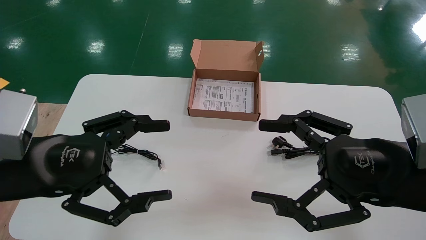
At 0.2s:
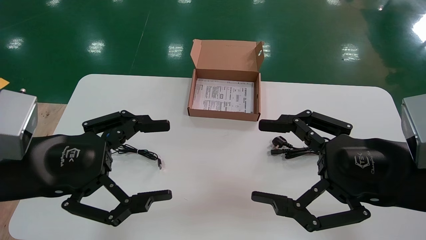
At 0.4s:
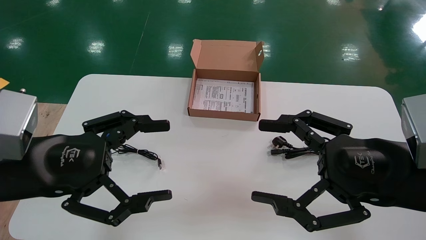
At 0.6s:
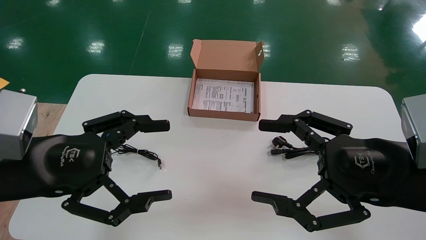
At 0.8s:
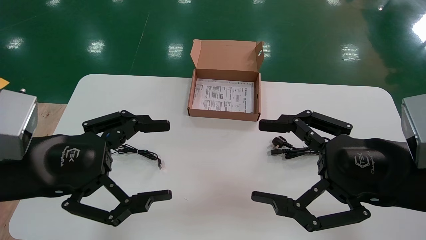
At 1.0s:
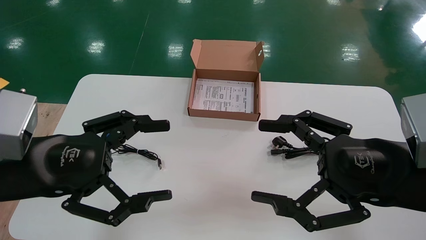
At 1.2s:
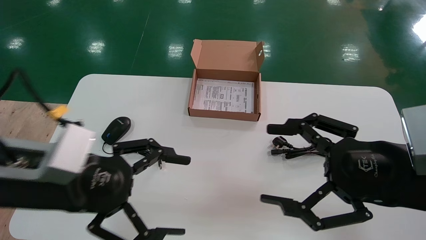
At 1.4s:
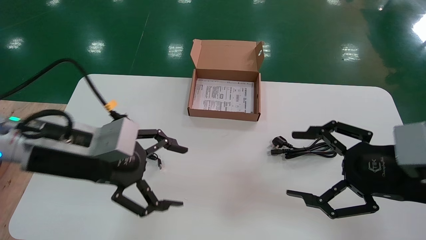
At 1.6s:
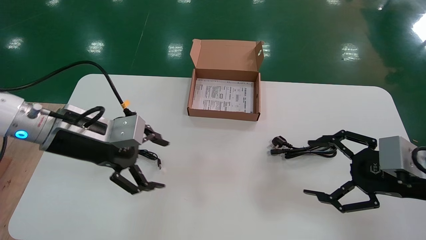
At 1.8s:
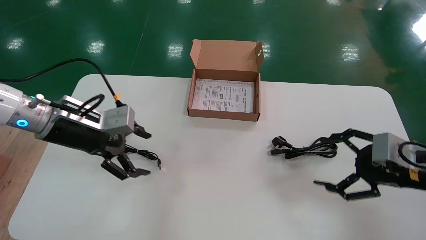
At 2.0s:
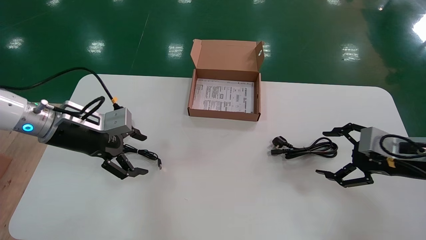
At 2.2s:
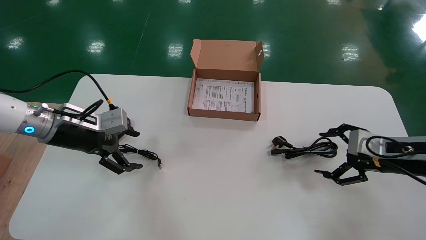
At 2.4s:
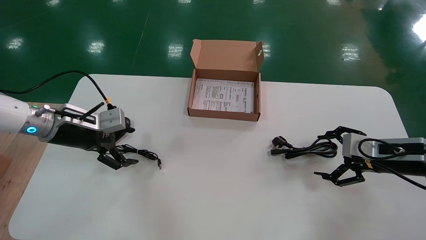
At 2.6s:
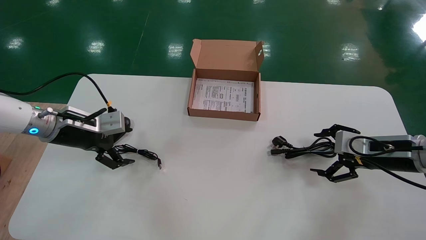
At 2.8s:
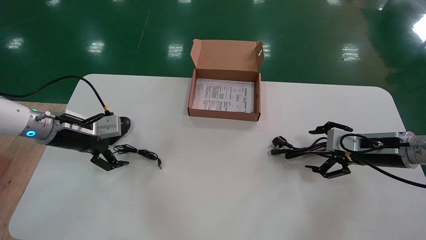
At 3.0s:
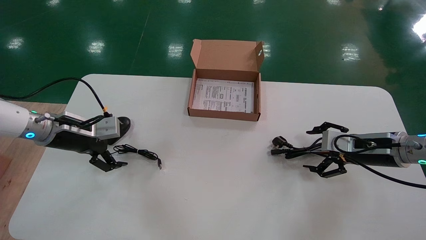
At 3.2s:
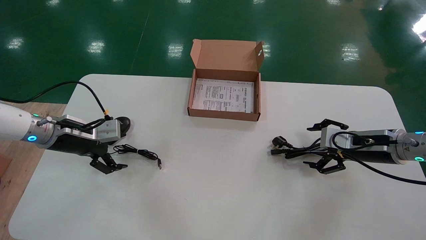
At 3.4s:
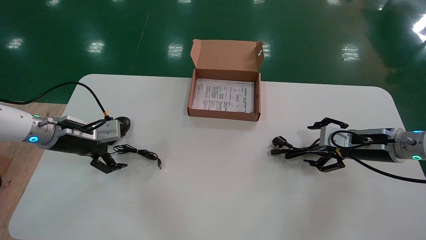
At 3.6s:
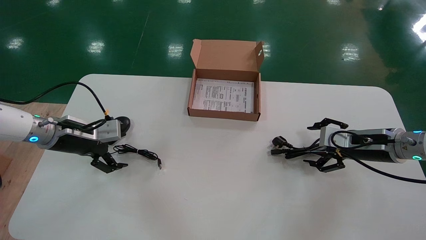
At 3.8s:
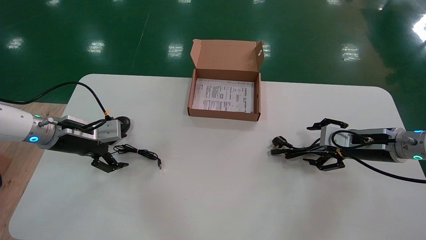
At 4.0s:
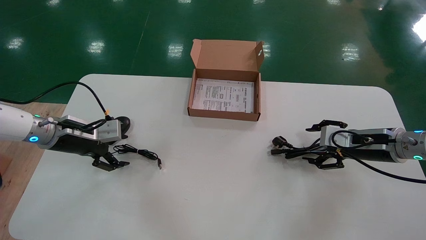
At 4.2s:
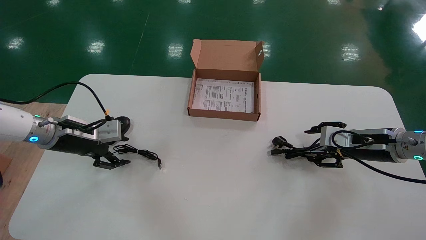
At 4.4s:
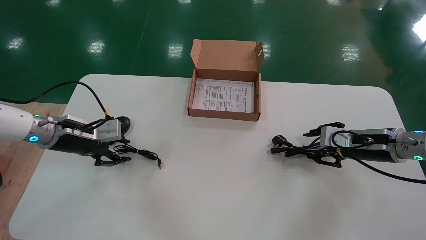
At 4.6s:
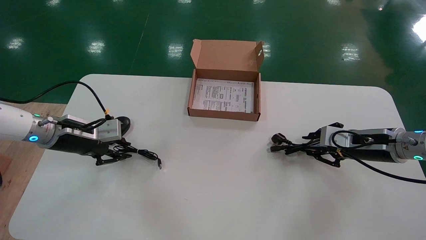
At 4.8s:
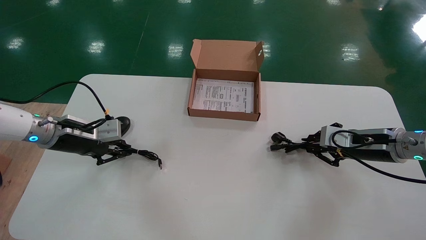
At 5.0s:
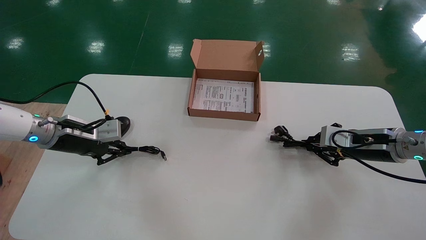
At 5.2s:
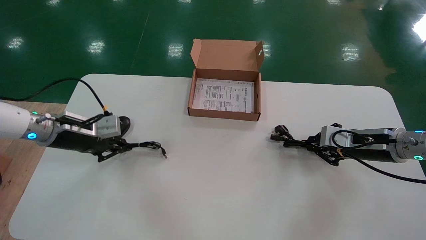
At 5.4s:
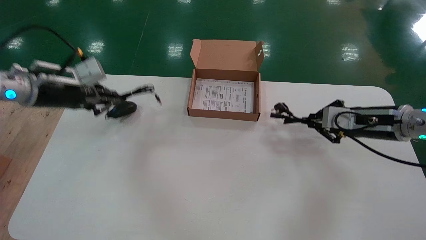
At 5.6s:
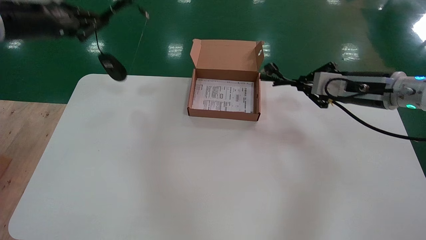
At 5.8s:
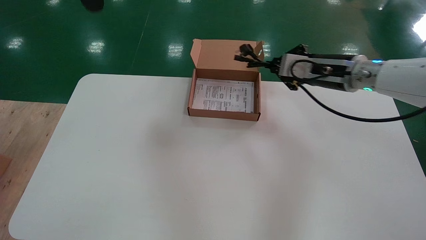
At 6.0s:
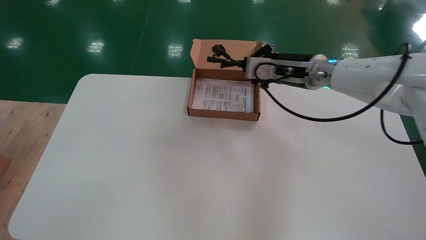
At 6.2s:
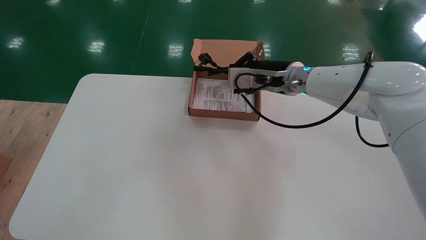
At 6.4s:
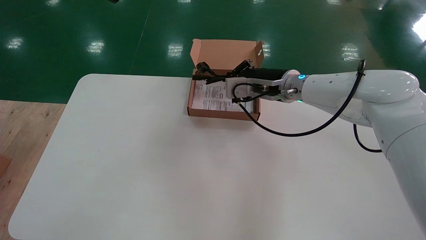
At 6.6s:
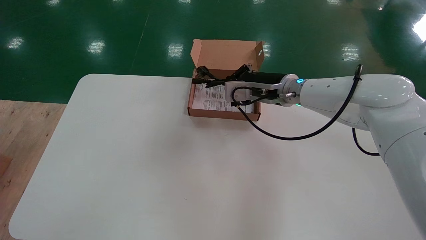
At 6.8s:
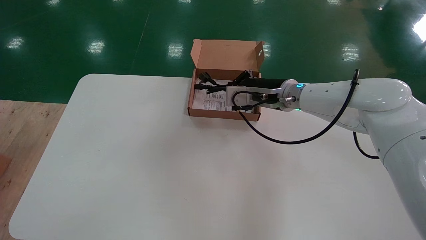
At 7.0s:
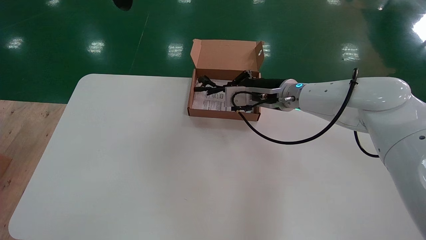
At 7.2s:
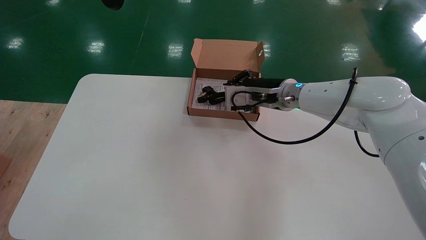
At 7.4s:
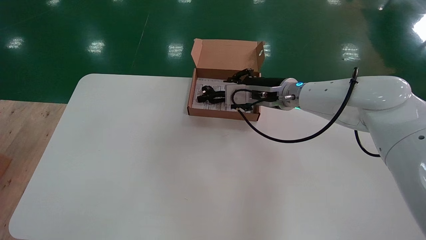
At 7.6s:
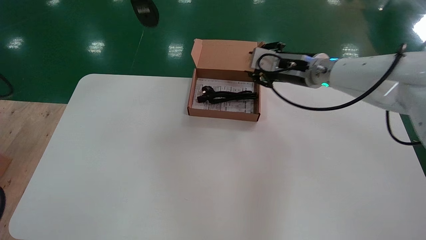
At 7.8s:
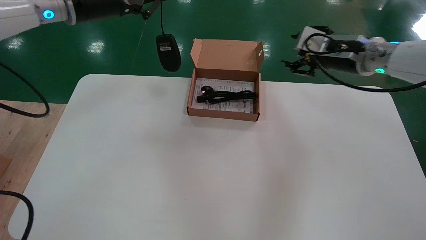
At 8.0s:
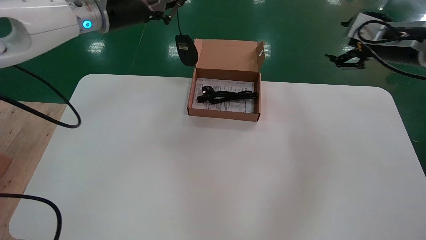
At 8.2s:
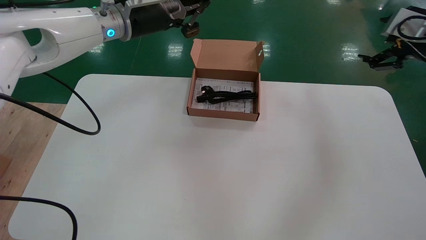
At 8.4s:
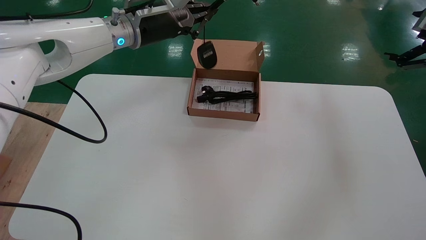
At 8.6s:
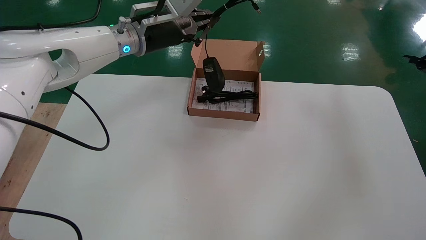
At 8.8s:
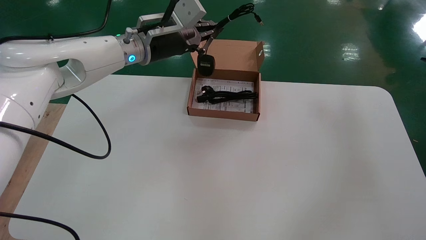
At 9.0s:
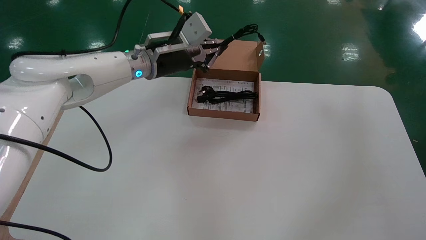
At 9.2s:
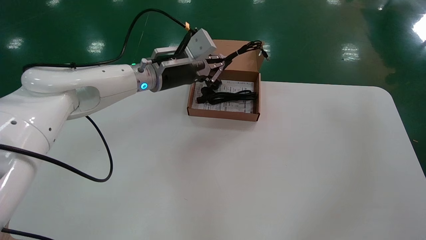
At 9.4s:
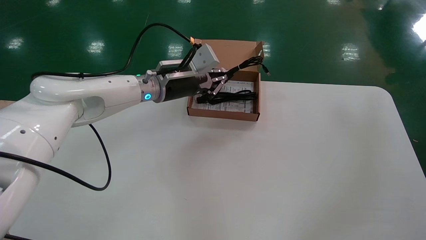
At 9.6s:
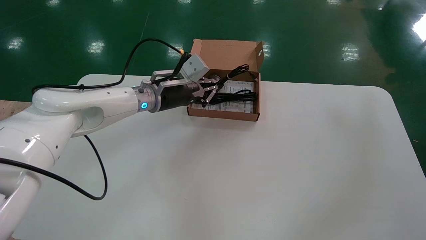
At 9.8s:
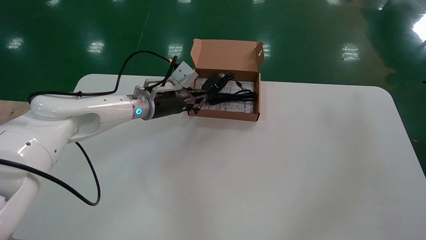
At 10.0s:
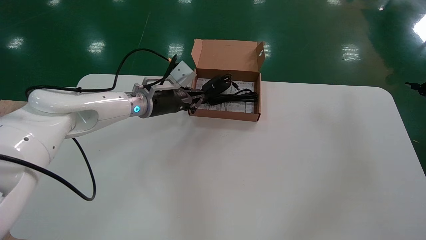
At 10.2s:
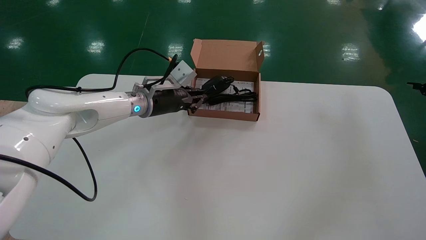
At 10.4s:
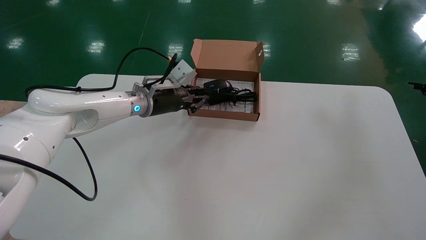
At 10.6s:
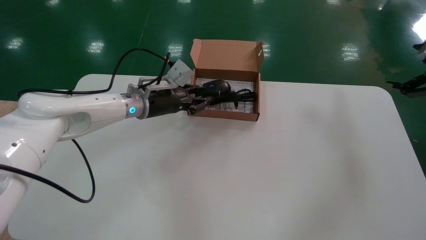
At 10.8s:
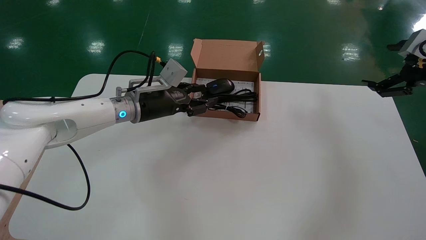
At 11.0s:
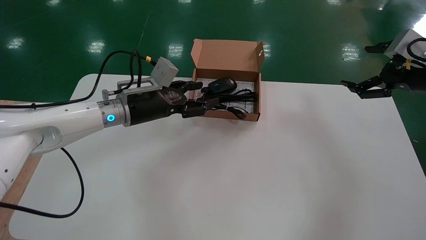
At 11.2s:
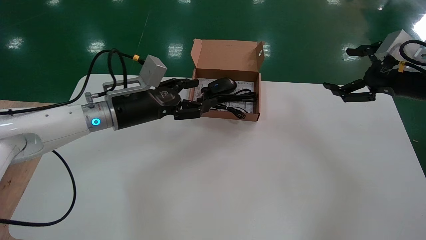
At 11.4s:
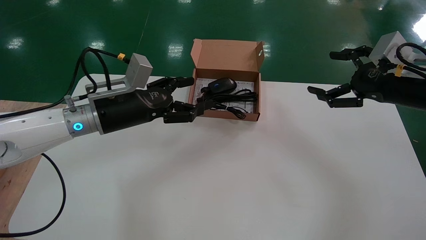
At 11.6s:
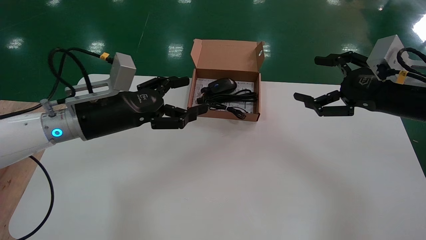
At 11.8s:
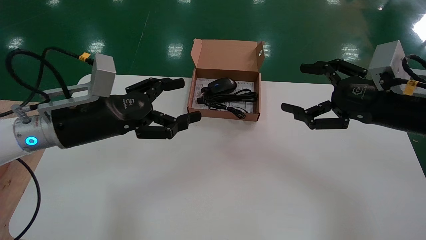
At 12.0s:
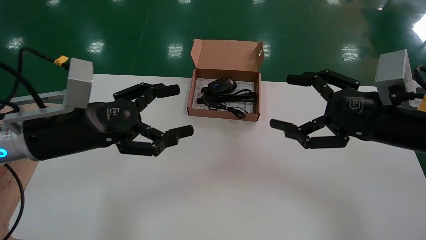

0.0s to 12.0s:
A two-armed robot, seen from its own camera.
Step, 1.4s to 5.2s: Simultaneously pick up the mouse and power cord from the accessory packaging area.
Step, 5.4s to 11.0s: Place the mouse and power cord into the box.
0.0s to 1.6s: The right gripper heads to the right and forward, covering approximately 10 cm; the left gripper travels forward by about 10 cm.
1.6s to 3.0s: The left gripper is displaced to the left, forward and downward by approximately 15 cm, while the right gripper travels forward by about 15 cm.
3.0s to 4.4s: The right gripper closes up. The left gripper closes.
4.4s to 6.0s: The right gripper is displaced to the left, upward and forward by approximately 20 cm, and closes its fingers. The left gripper goes roughly 35 cm upward, and closes its fingers.
6.0s to 7.6s: The left gripper shifts approximately 5 cm downward; the right gripper goes to the left and returns, some 5 cm each way.
7.6s to 9.0s: The left gripper heads downward, to the right and forward, covering some 20 cm; the right gripper travels to the right and backward by roughly 35 cm, and opens its fingers.
9.0s to 10.4s: The left gripper shifts roughly 10 cm downward.
10.4s to 12.0s: The right gripper is displaced to the left and backward by approximately 20 cm. Meanwhile the left gripper moves backward and to the left, roughly 25 cm, and opens its fingers.

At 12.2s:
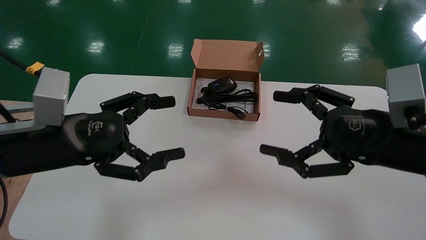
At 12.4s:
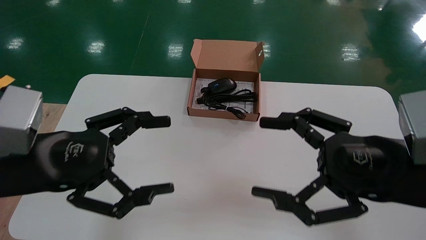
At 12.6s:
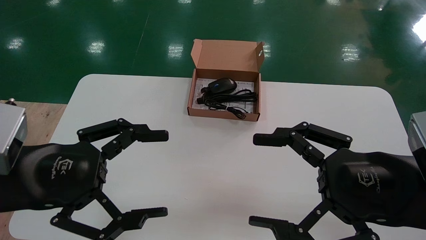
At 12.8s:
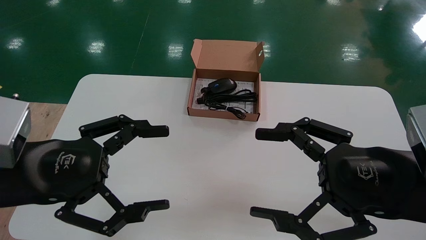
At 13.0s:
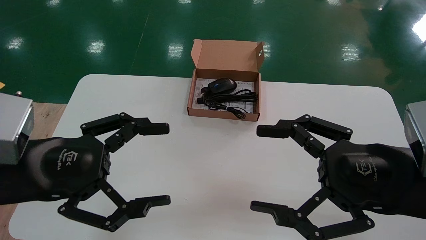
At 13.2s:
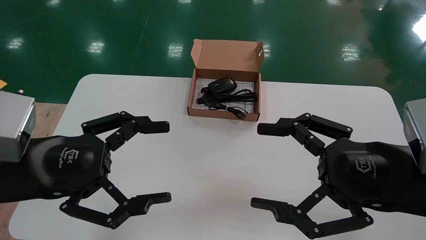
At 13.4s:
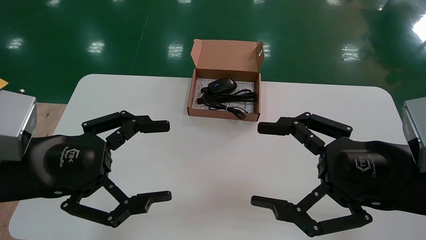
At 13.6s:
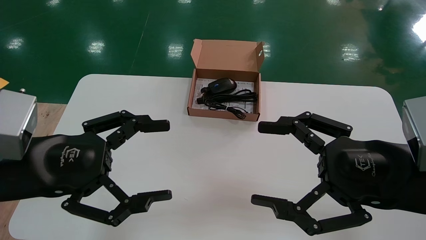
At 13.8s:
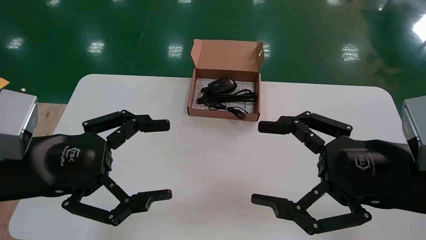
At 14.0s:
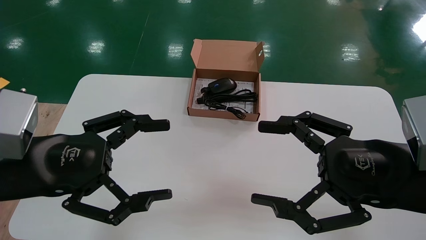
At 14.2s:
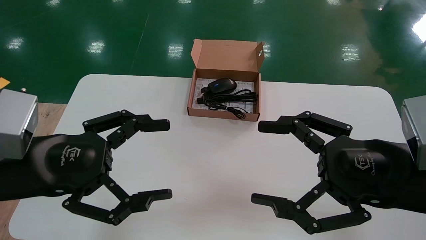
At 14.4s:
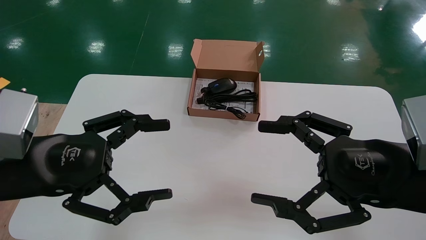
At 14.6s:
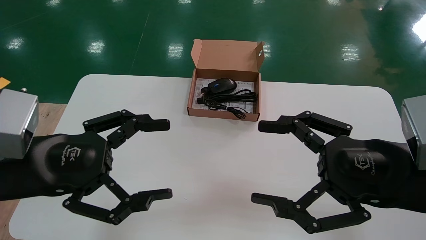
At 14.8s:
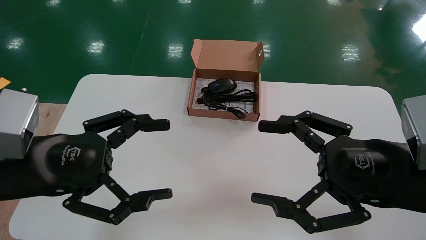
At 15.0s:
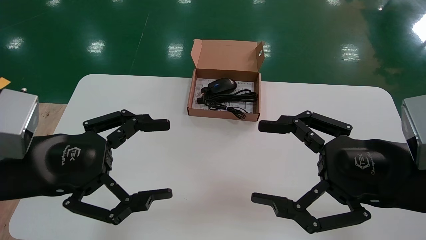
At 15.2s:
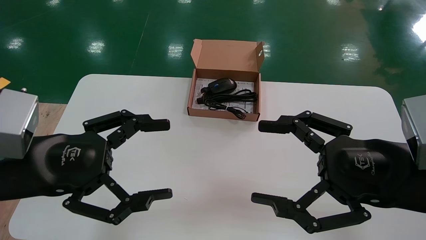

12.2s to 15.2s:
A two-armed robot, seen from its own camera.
13.8s to 15.2s: Both grippers stay about where they are.
